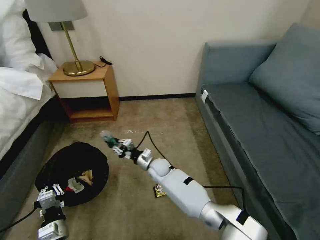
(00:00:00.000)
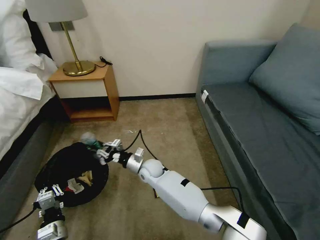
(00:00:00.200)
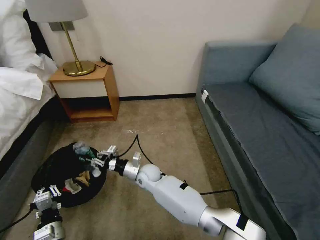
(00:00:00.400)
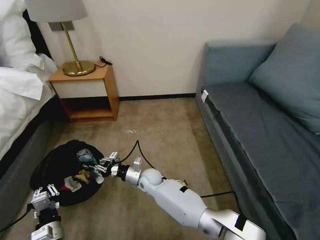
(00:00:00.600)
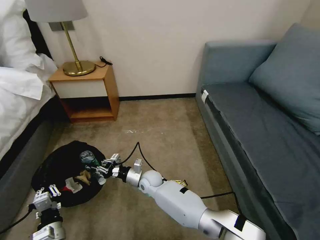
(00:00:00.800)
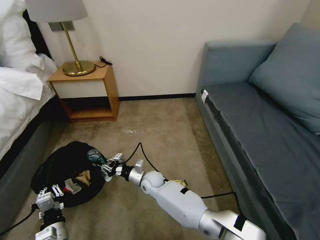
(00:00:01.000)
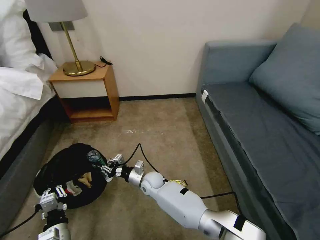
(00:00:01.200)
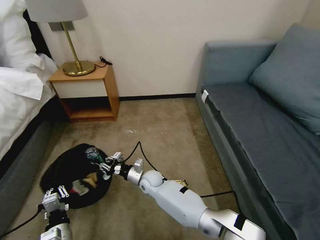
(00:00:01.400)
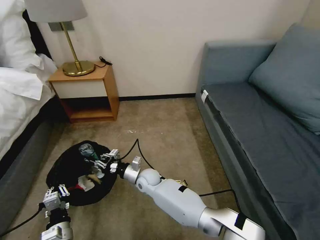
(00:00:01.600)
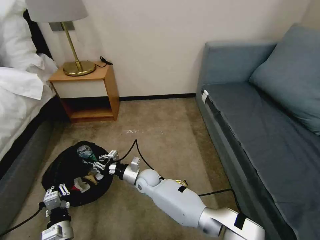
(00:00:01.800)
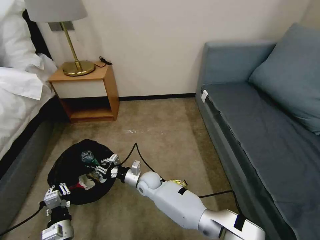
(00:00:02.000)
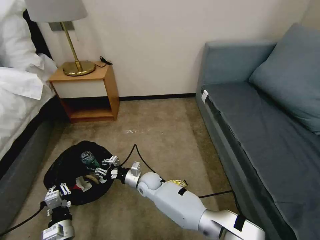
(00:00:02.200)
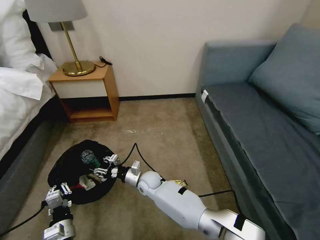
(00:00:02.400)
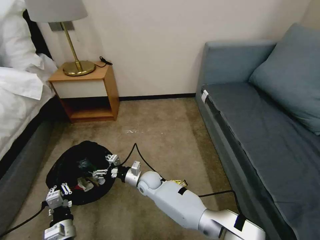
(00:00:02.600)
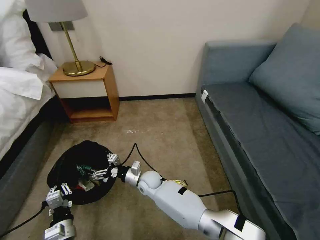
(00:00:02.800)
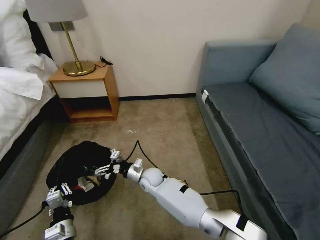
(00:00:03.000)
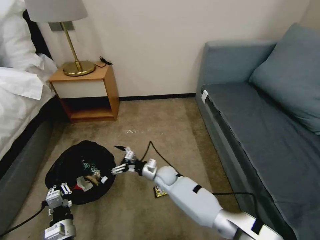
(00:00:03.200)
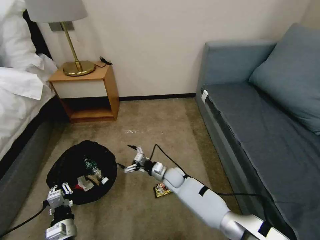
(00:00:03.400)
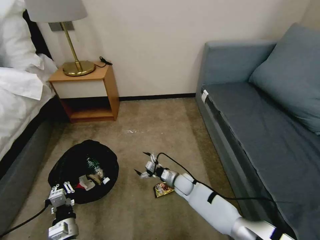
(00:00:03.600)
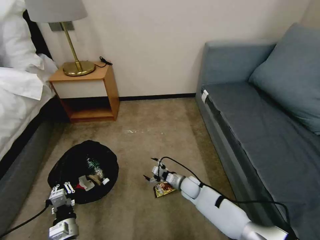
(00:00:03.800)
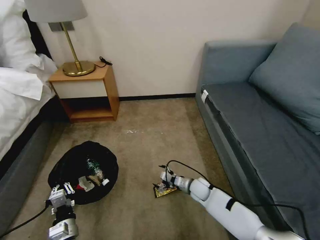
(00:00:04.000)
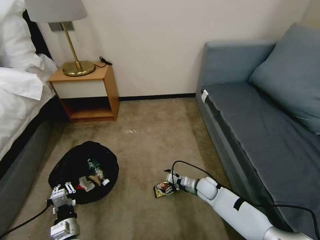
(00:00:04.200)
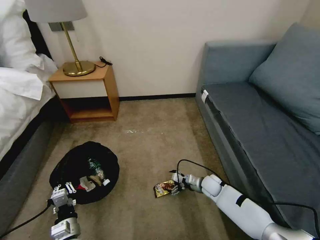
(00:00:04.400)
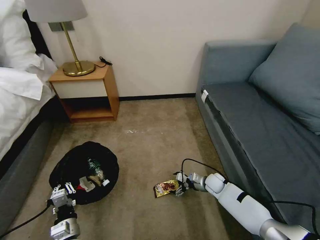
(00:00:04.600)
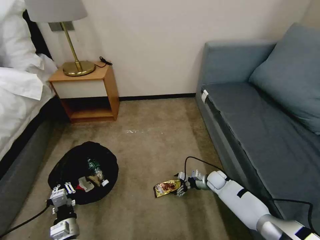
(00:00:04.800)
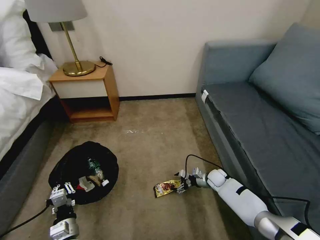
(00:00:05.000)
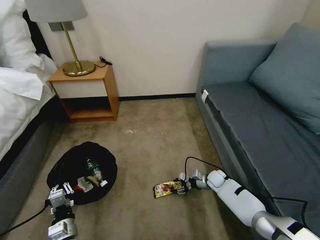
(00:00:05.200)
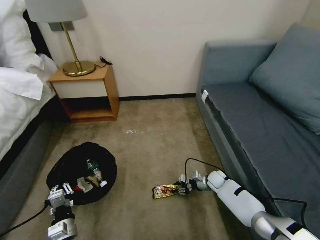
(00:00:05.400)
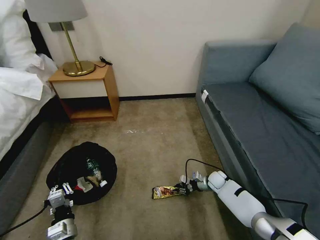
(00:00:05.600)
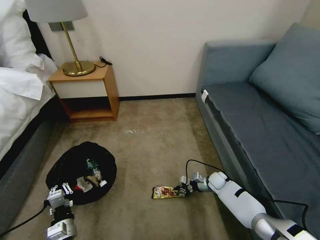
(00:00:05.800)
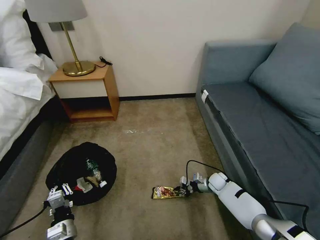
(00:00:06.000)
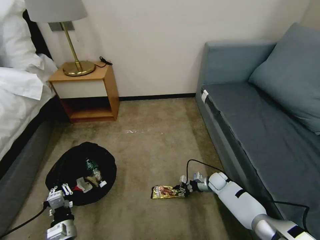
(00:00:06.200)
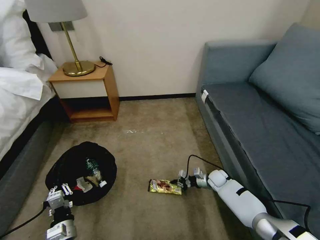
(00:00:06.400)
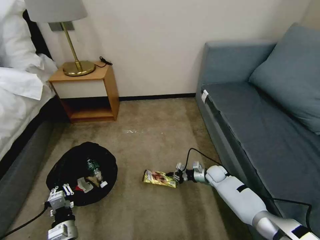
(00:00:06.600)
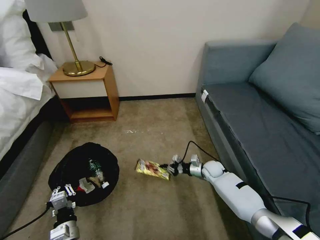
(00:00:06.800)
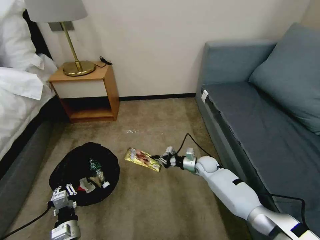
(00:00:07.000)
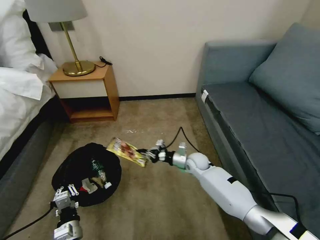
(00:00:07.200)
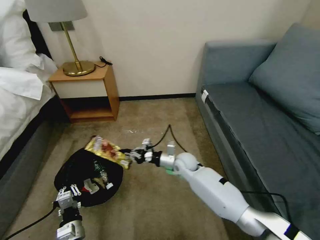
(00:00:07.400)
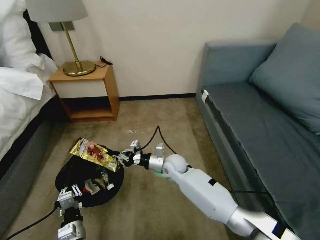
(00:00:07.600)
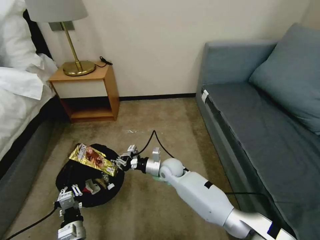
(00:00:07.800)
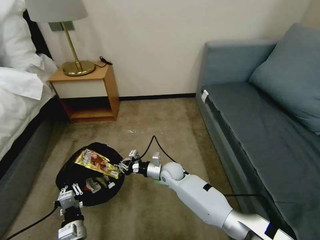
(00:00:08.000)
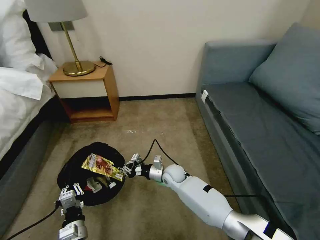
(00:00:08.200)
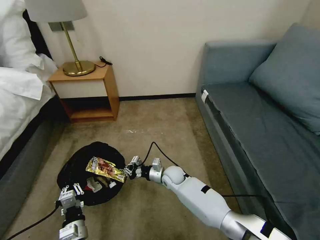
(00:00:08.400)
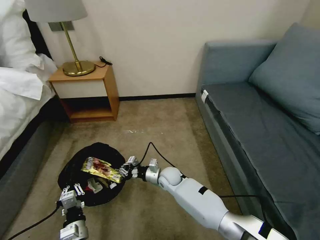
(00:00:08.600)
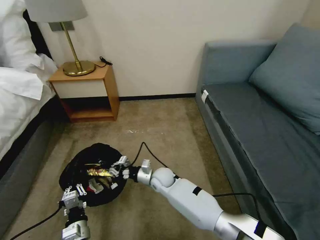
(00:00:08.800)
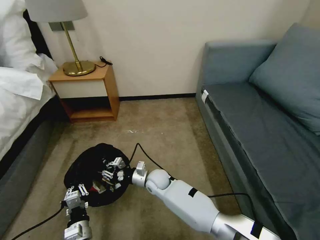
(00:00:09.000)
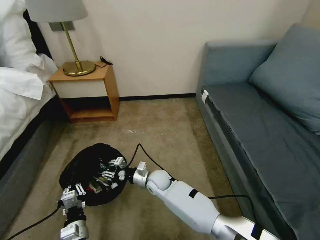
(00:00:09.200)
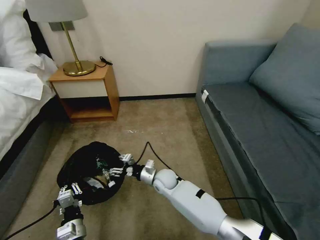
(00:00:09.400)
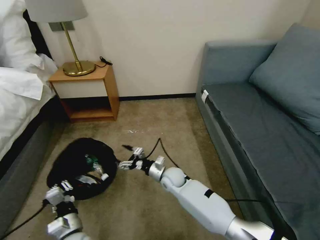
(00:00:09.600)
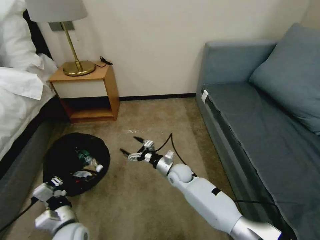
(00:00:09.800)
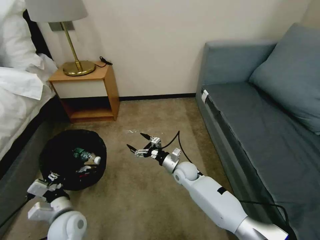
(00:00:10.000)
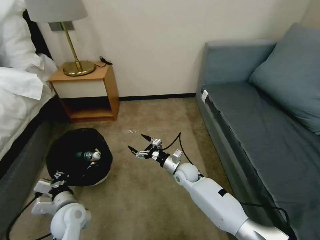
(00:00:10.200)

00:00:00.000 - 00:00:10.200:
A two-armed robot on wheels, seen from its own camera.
Task of the whole recording: Pick up the trash bin, then pick up the garbage on the floor and place it into the trash bin.
00:00:00.000 - 00:00:01.400: The right gripper changes place by roughly 5 cm.
00:00:01.400 - 00:00:03.000: The right gripper opens up.
00:00:03.000 - 00:00:04.400: The right gripper travels to the right by some 25 cm.
00:00:04.400 - 00:00:05.800: The right gripper shifts roughly 5 cm to the right, and closes its fingers.
00:00:05.800 - 00:00:07.200: The right gripper shifts roughly 20 cm upward and to the left.
00:00:07.200 - 00:00:08.800: The right gripper moves to the left and backward, about 15 cm.
00:00:08.800 - 00:00:10.200: The right gripper heads to the right, covering about 10 cm, and opens; the left gripper shifts about 10 cm forward and upward.

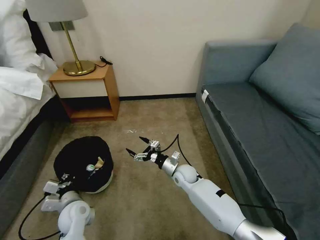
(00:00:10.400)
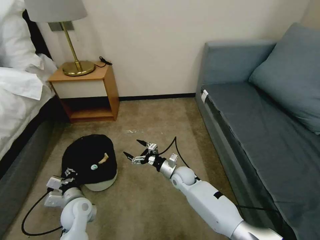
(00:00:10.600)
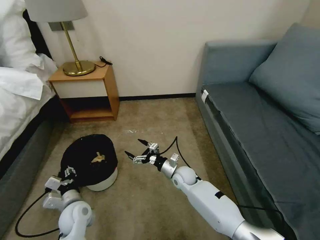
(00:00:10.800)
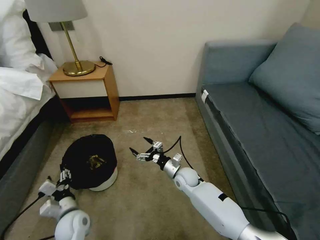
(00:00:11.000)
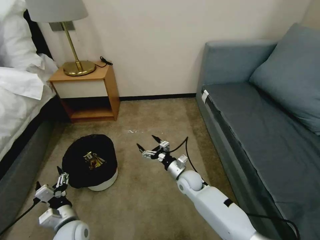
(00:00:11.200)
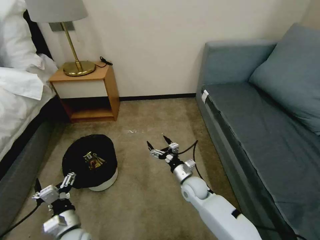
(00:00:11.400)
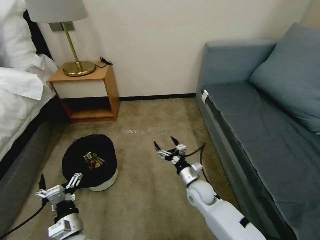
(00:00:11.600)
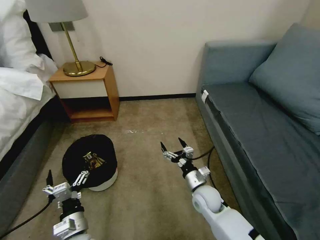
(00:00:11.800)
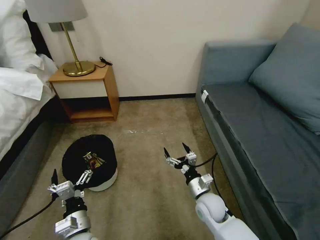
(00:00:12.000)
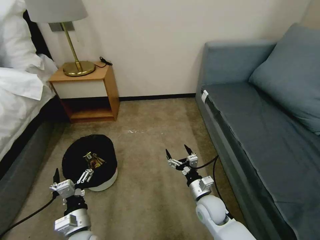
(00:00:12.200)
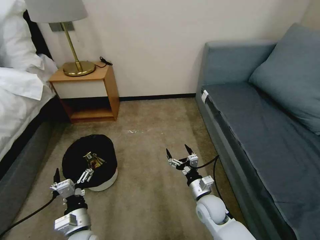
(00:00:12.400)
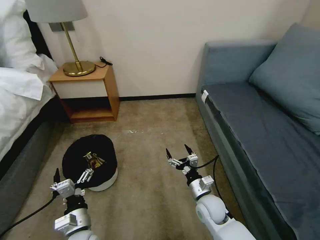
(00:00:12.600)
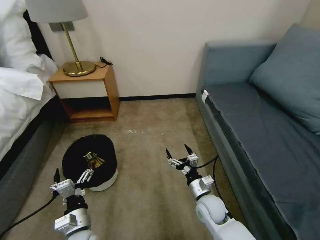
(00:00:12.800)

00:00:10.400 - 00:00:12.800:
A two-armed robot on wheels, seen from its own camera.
Task of the whole recording: Pick up the trash bin, then pick up the garbage on the floor and place it into the trash bin.
00:00:10.400 - 00:00:11.600: The grippers both shift backward by approximately 10 cm. The left gripper opens up.
00:00:11.600 - 00:00:12.800: The right gripper goes roughly 5 cm backward.
